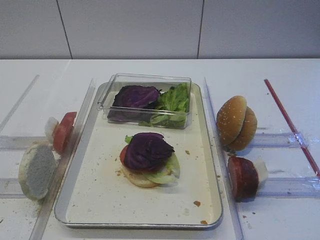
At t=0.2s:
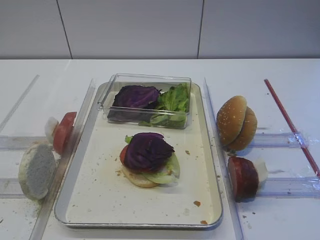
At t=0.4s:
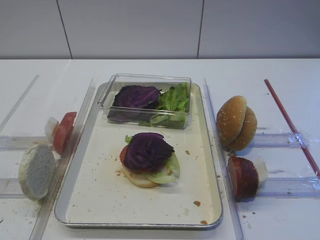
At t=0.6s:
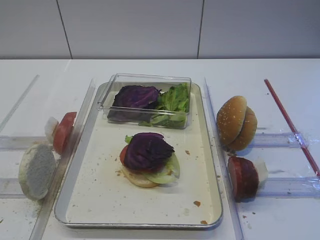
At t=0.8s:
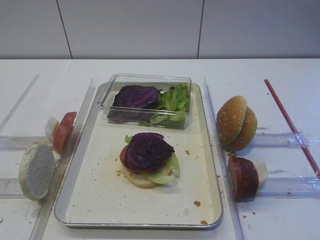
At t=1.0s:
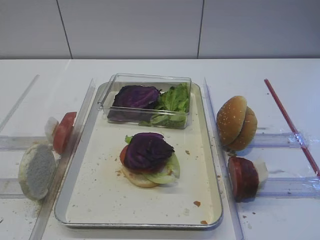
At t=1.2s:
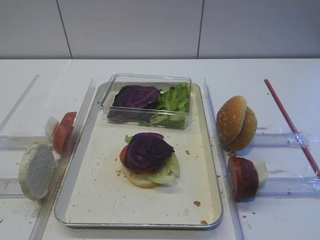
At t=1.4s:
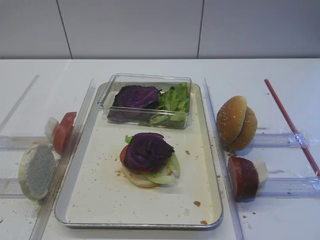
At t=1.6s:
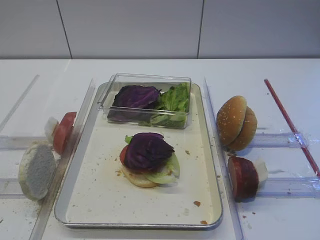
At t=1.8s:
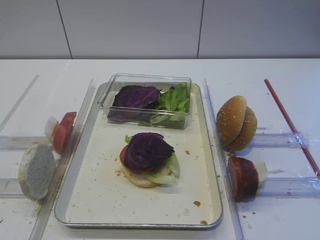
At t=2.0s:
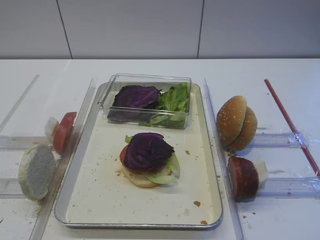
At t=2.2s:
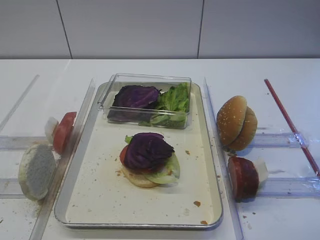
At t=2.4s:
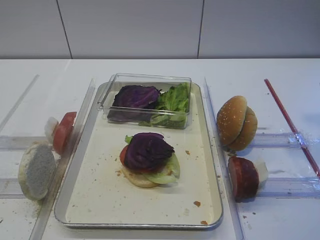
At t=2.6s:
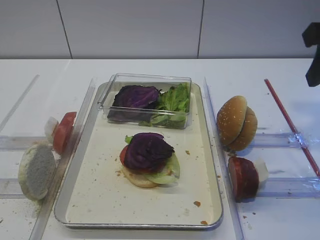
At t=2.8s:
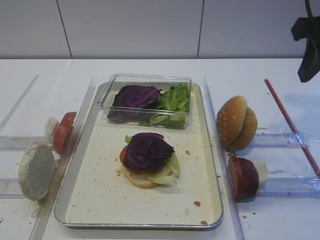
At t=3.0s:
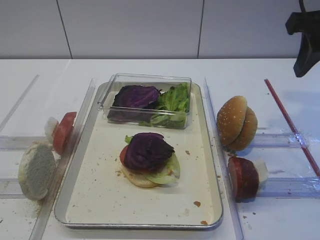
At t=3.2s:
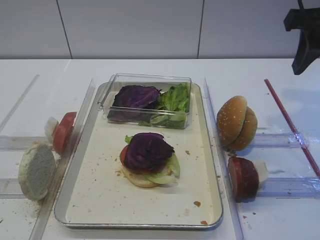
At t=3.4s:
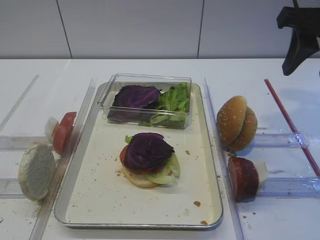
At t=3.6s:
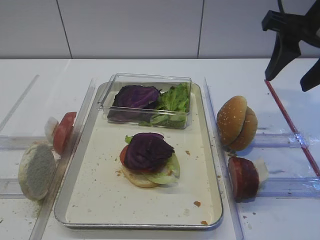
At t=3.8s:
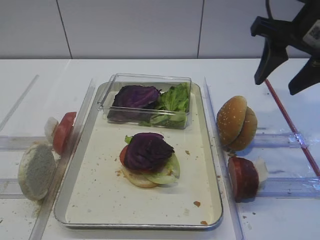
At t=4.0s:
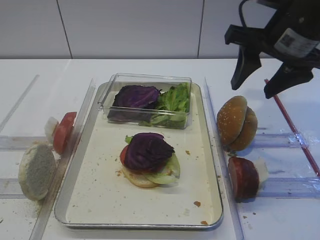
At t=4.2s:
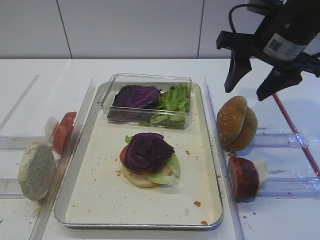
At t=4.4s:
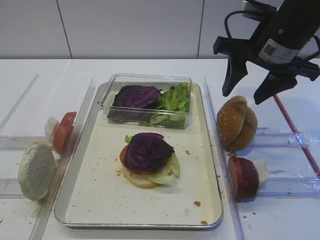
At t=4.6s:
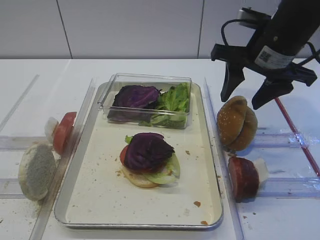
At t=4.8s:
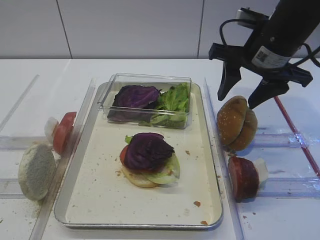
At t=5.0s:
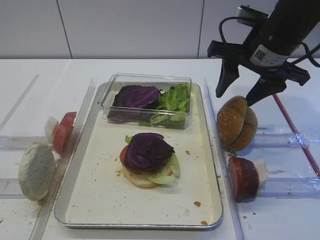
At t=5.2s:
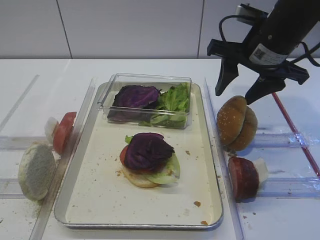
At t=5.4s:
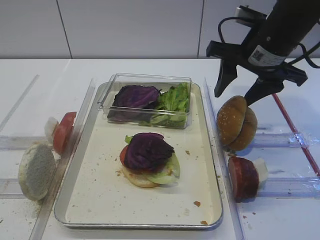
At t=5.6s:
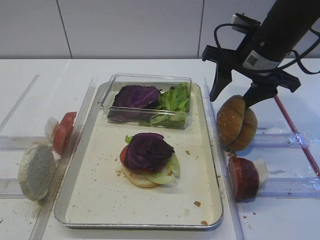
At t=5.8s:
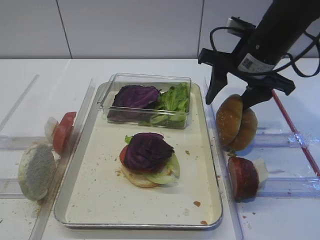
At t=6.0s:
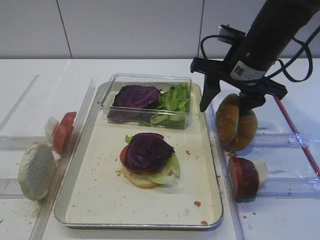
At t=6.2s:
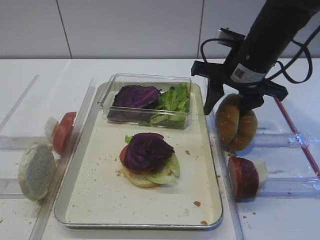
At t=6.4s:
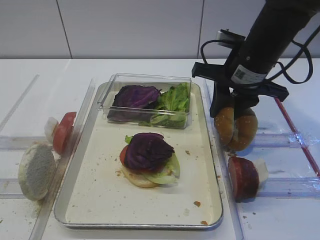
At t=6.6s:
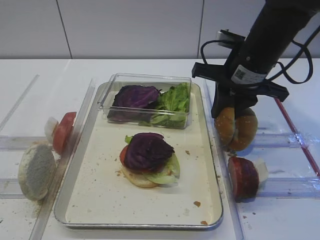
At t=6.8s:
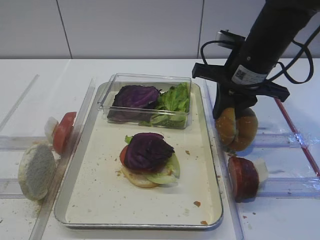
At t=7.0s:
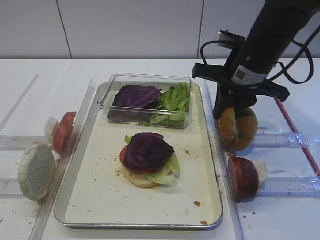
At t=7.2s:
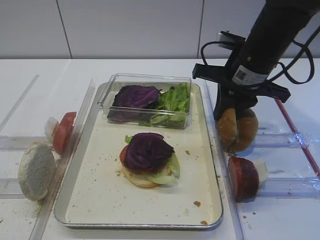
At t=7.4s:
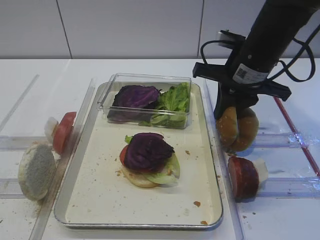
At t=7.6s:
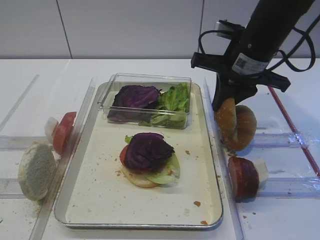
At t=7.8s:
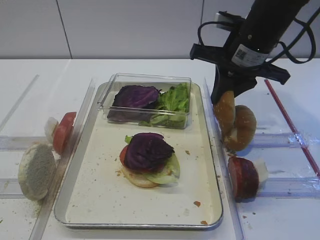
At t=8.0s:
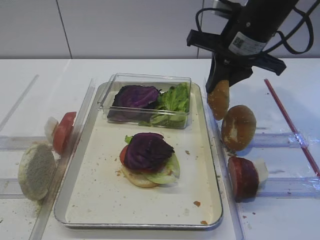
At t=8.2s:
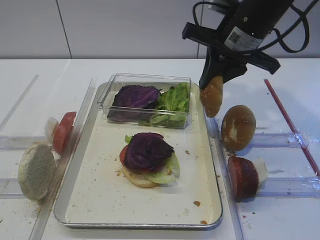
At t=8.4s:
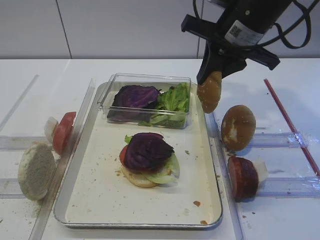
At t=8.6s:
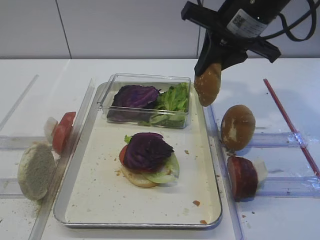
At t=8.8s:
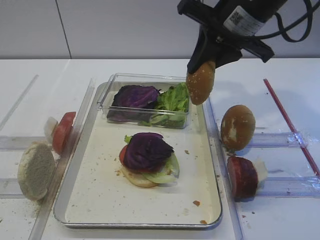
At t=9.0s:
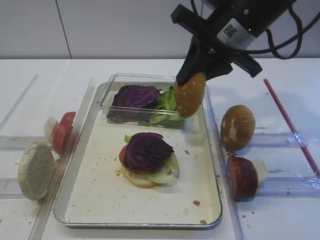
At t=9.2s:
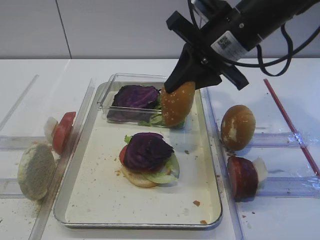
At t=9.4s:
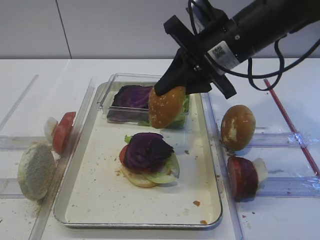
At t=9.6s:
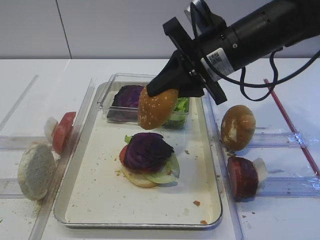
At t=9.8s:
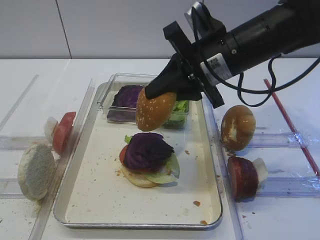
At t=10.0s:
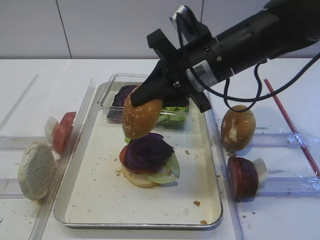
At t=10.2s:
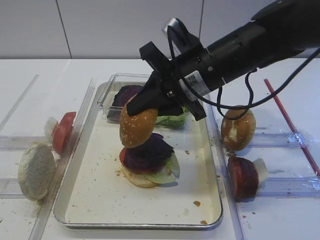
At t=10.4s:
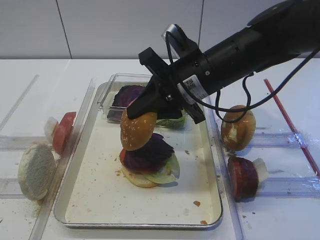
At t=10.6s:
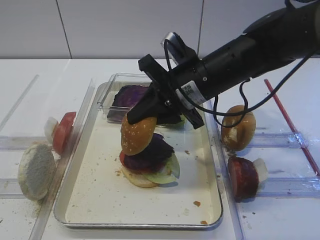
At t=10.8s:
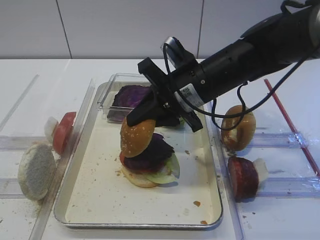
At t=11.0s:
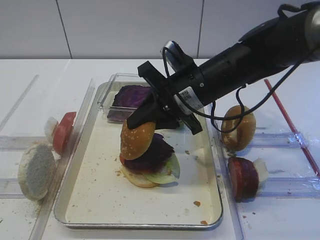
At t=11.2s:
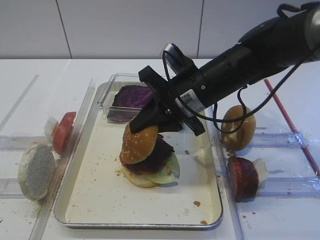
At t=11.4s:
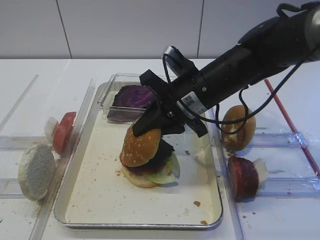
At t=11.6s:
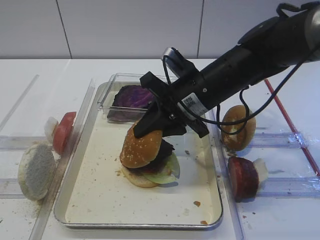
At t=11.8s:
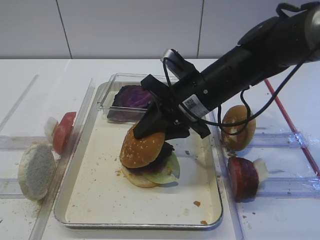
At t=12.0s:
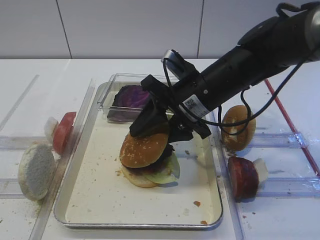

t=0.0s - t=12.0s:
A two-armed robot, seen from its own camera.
Step, t=0.0s - t=7.8s: Pick up the hamburger lid with the right gripper.
t=1.6s - t=3.0s: The right gripper is displaced forward by roughly 25 cm.
t=3.0s - t=4.4s: The right gripper shifts roughly 10 cm to the left and downward.
t=4.4s - t=6.0s: The right gripper ends up approximately 5 cm from where it was.
t=6.0s - t=7.6s: The right gripper closes.
t=7.6s - t=9.0s: The right gripper moves upward, roughly 5 cm.
t=9.0s - t=10.4s: The right gripper travels downward by roughly 5 cm.
t=10.4s - t=12.0s: The right gripper opens its fingers.

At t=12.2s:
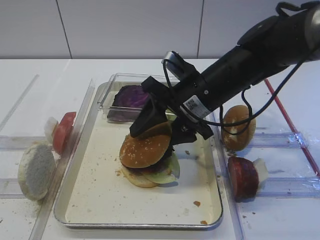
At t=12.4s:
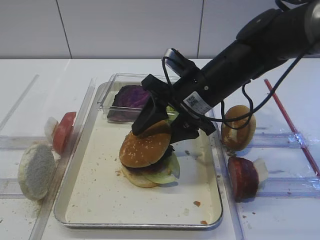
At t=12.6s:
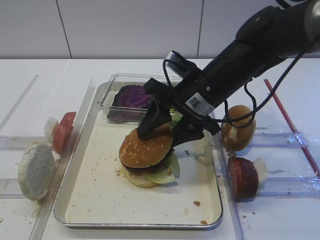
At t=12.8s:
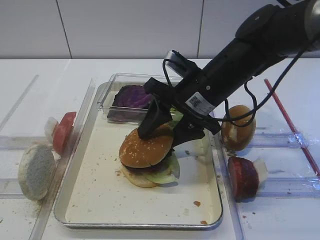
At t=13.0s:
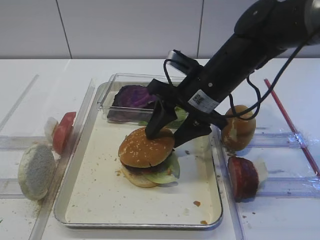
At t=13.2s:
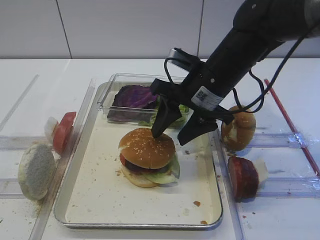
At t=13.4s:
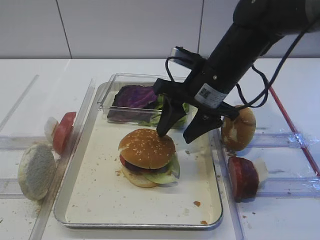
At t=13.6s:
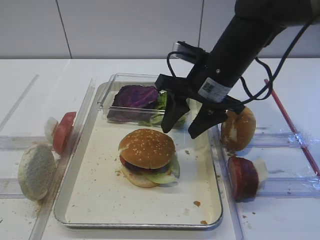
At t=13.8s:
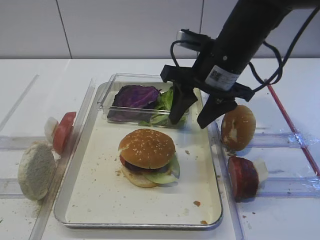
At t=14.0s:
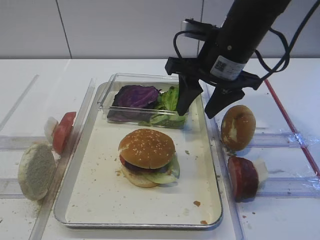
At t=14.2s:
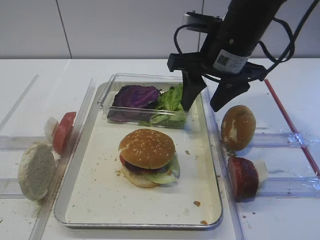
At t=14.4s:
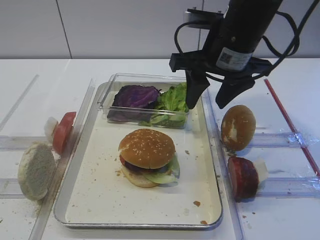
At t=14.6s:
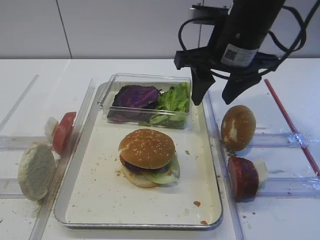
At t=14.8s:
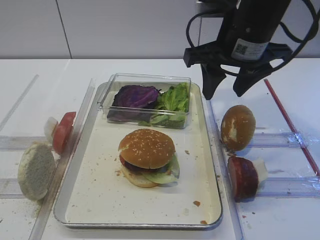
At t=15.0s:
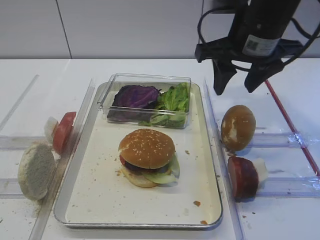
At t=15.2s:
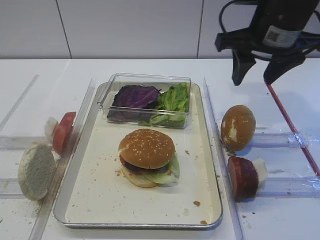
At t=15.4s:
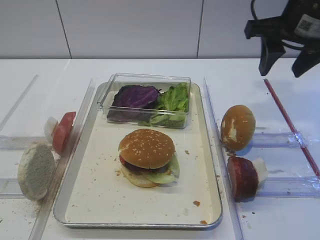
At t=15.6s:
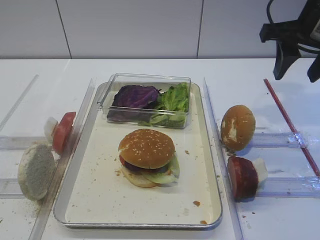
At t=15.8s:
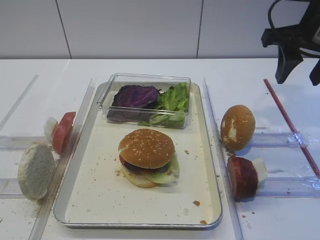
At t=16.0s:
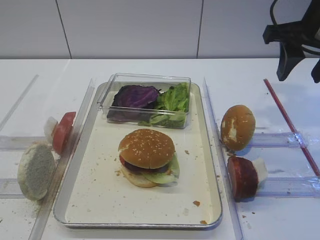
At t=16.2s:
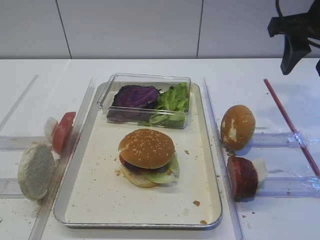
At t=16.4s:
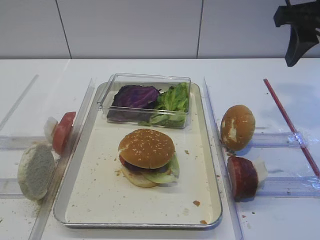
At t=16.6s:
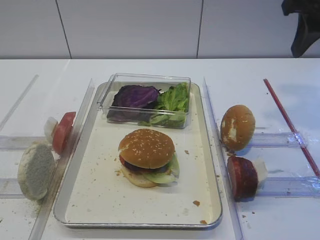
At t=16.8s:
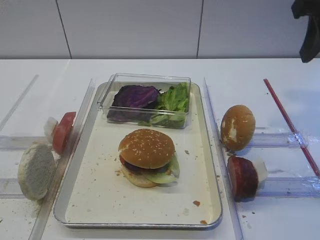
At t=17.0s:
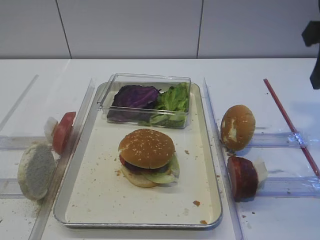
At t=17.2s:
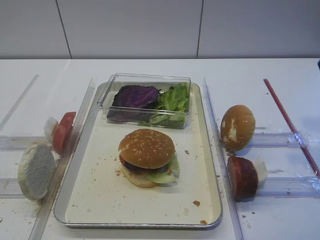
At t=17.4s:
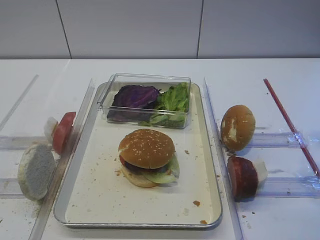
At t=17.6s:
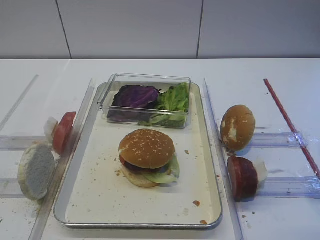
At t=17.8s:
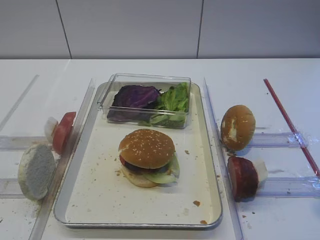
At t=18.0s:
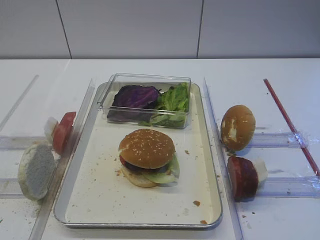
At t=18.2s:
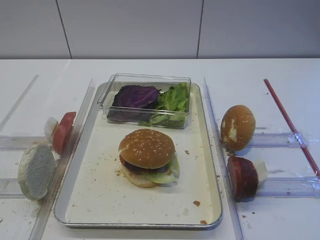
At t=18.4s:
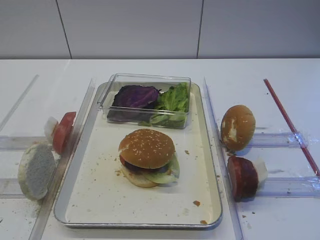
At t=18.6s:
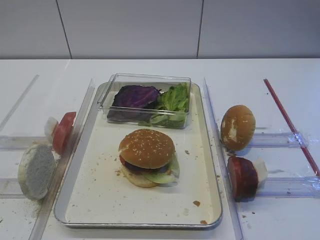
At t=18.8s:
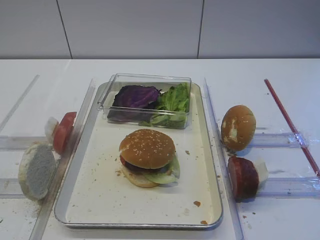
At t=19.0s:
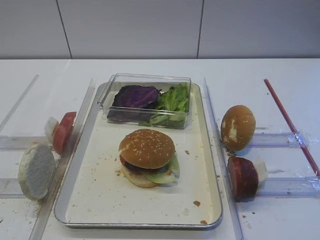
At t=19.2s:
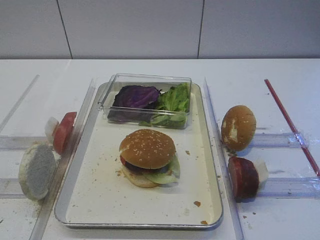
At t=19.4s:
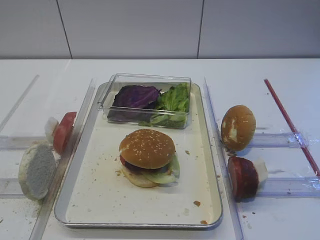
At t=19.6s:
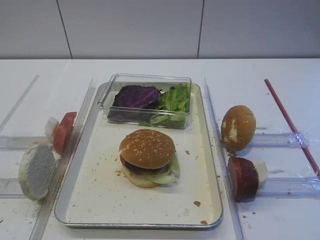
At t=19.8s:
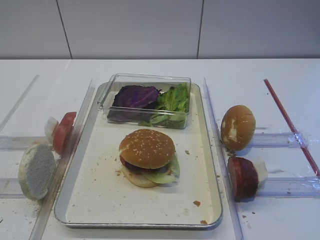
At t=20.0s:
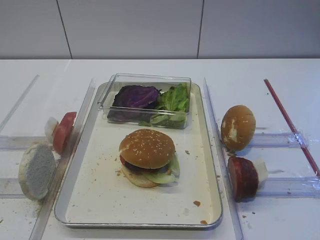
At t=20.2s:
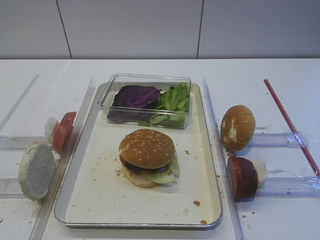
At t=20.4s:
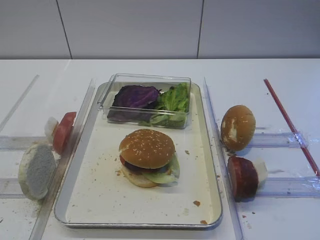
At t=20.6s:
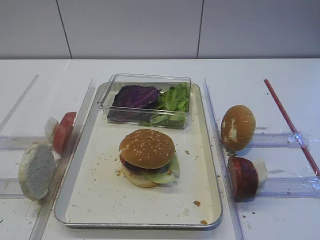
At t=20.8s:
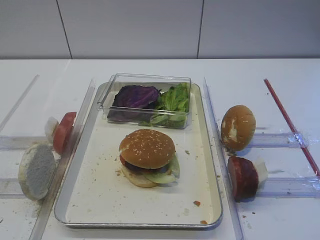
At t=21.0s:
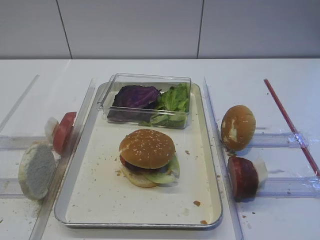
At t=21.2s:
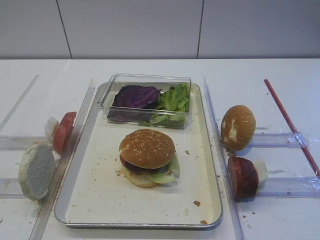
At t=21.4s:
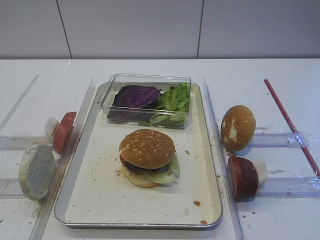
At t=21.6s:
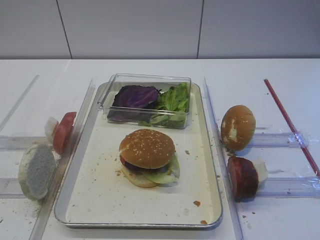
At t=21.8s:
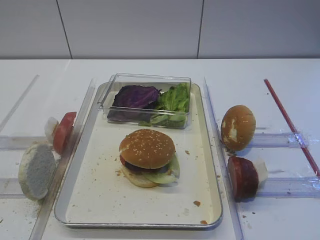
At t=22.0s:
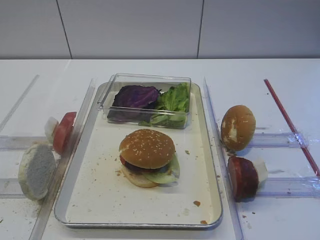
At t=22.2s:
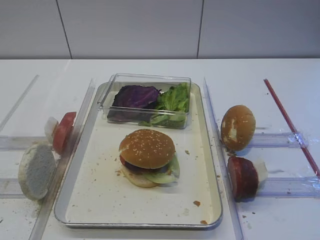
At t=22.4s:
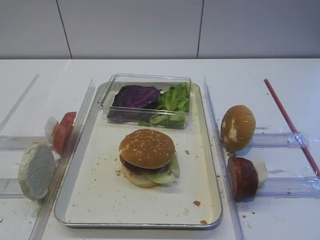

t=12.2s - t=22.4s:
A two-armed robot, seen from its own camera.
t=13.6s - t=15.2s: The right gripper shifts roughly 10 cm upward and to the right.
t=15.2s - t=16.6s: The right gripper goes approximately 10 cm to the right and upward.
t=16.6s - t=18.0s: The right gripper moves backward, roughly 20 cm.
t=19.4s - t=22.4s: Neither gripper changes place.
